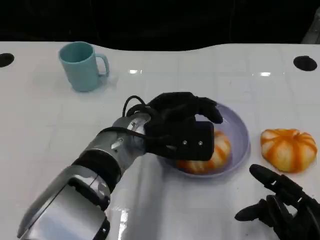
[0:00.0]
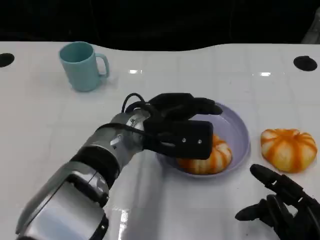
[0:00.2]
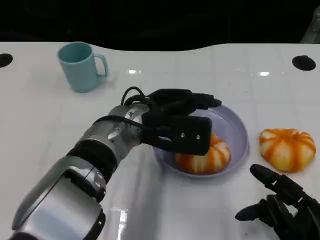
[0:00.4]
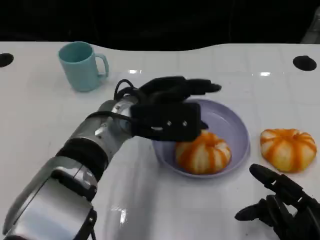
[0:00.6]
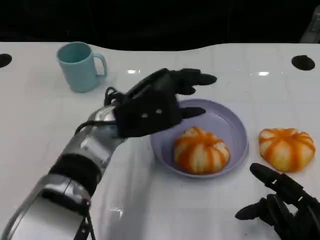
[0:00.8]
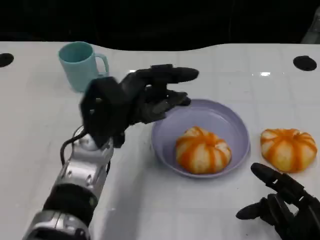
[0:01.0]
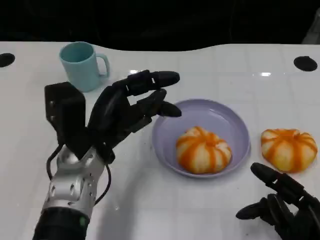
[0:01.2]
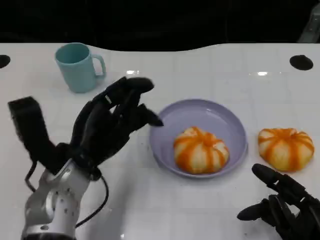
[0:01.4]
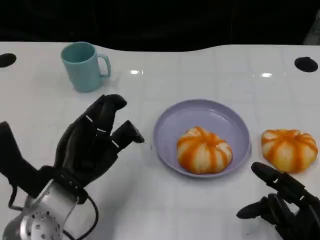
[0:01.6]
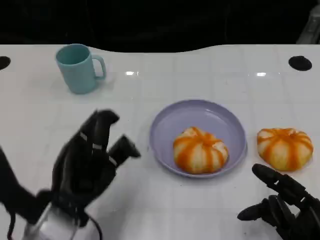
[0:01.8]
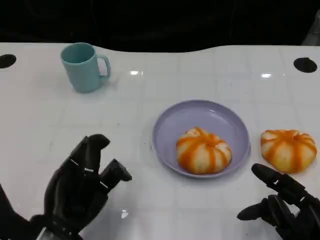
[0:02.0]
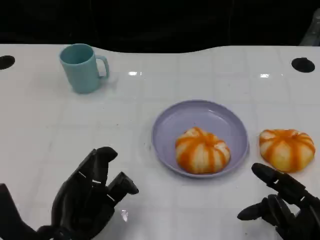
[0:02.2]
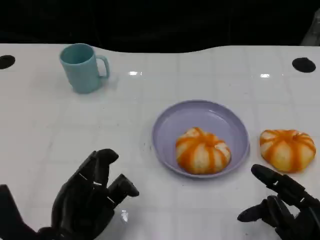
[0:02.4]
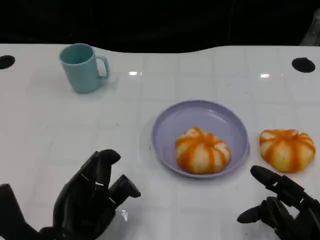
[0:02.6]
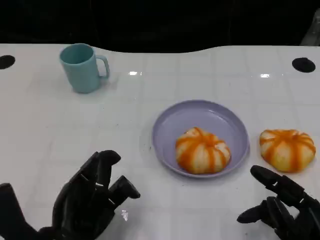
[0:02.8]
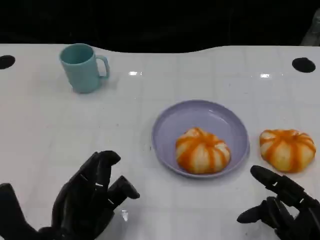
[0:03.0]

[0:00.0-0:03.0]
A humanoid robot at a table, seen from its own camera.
Task of the whole recording: Grasp the bread from the table and place it into the plate.
0:00.0 to 0:01.6: The left hand is displaced to the left and backward by some 15 cm.
0:01.6 to 0:03.0: The left hand travels backward by some 5 cm.
